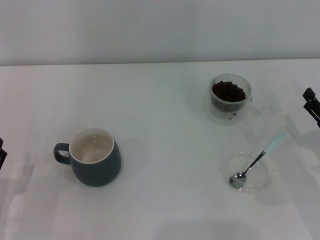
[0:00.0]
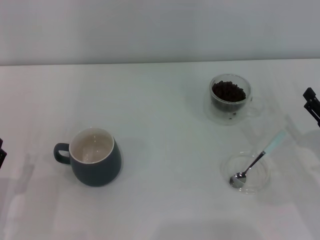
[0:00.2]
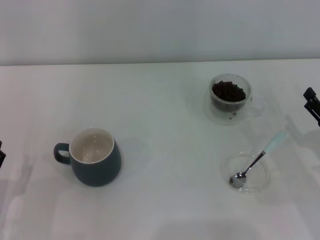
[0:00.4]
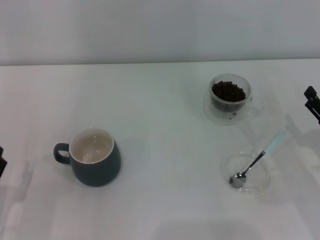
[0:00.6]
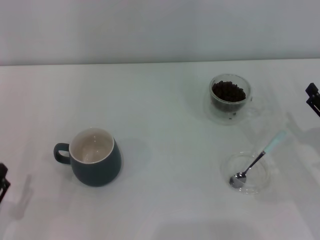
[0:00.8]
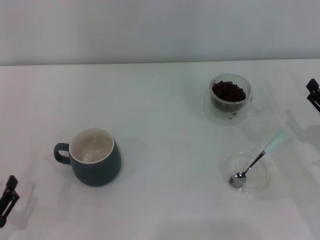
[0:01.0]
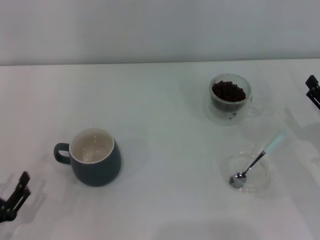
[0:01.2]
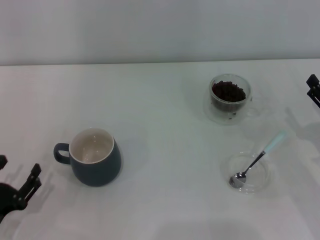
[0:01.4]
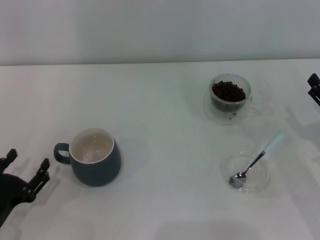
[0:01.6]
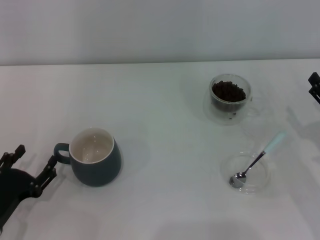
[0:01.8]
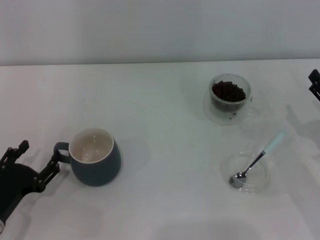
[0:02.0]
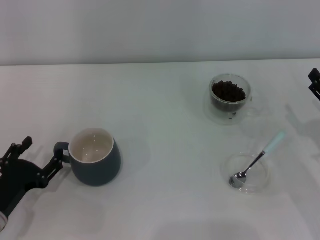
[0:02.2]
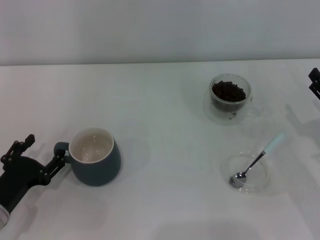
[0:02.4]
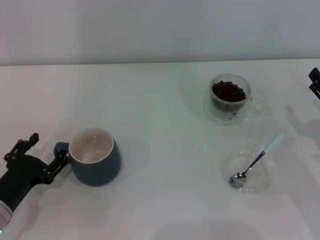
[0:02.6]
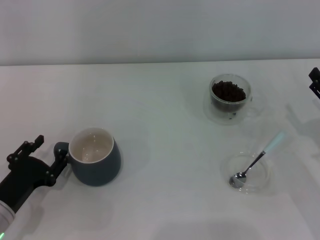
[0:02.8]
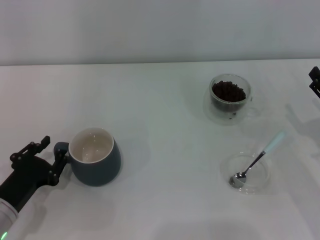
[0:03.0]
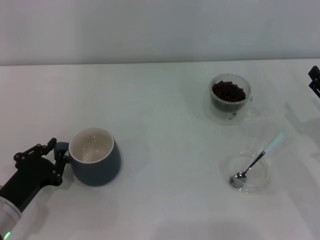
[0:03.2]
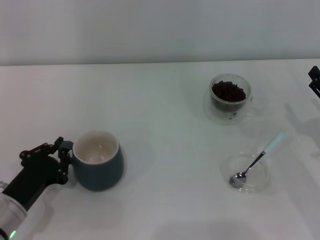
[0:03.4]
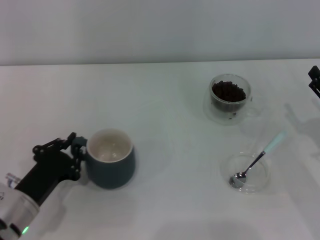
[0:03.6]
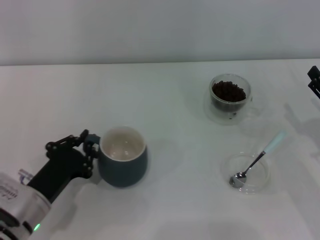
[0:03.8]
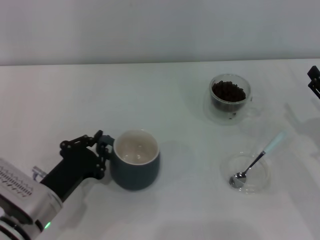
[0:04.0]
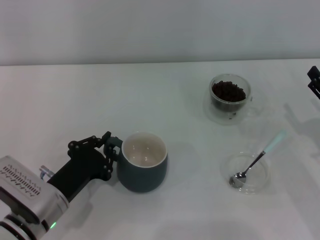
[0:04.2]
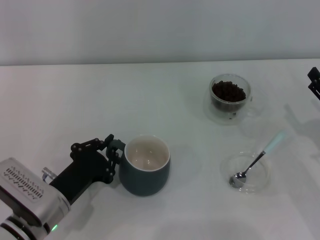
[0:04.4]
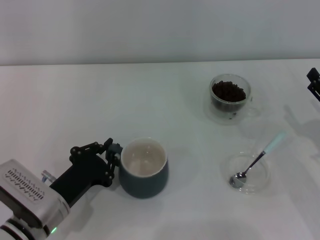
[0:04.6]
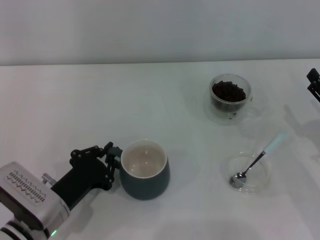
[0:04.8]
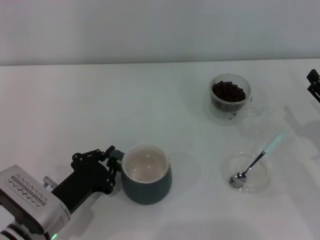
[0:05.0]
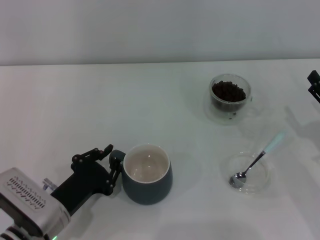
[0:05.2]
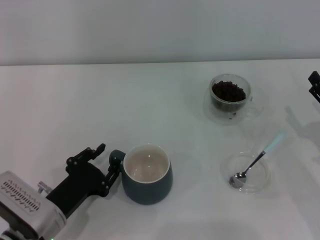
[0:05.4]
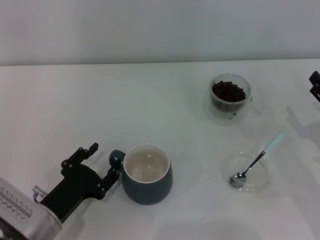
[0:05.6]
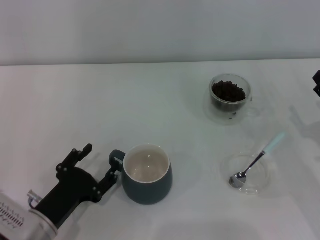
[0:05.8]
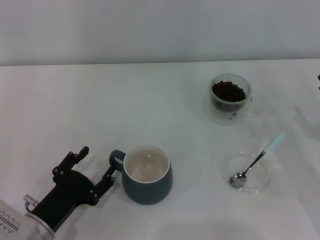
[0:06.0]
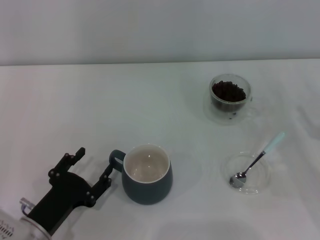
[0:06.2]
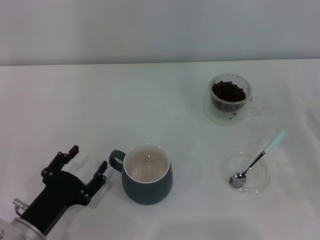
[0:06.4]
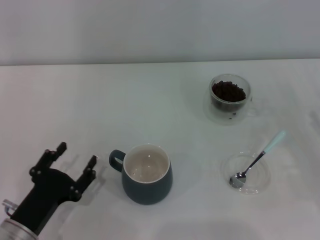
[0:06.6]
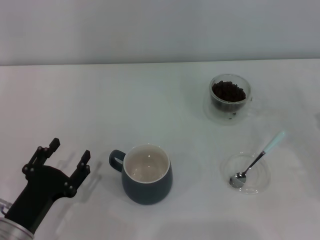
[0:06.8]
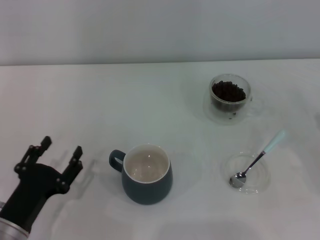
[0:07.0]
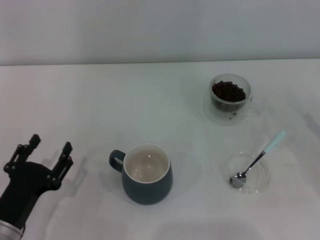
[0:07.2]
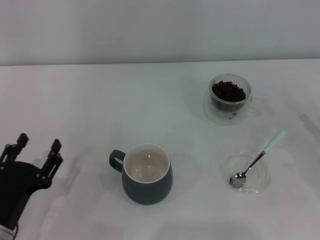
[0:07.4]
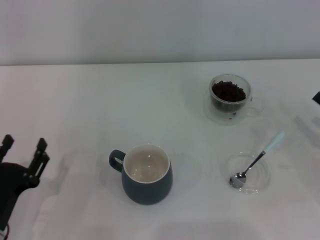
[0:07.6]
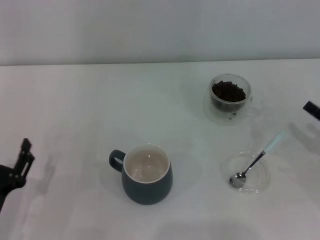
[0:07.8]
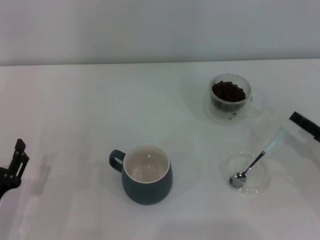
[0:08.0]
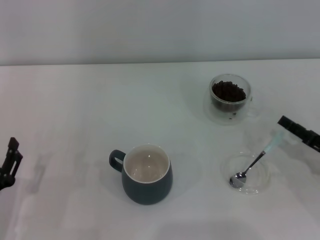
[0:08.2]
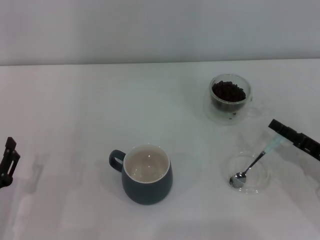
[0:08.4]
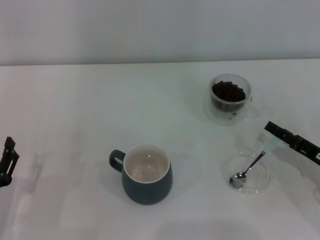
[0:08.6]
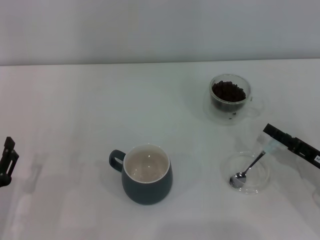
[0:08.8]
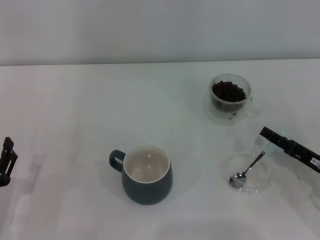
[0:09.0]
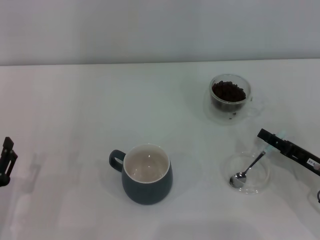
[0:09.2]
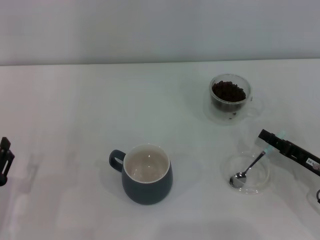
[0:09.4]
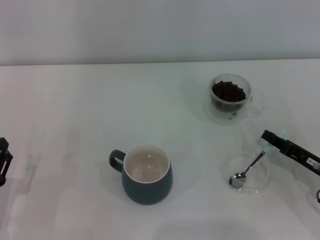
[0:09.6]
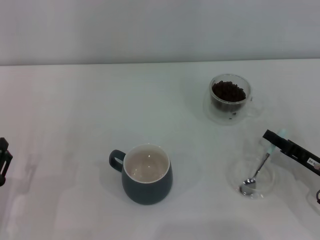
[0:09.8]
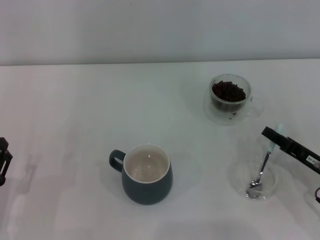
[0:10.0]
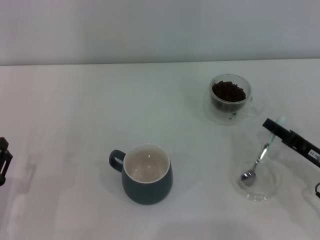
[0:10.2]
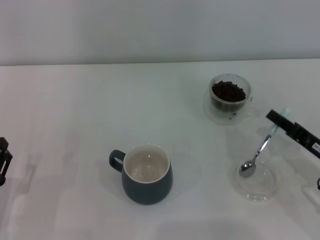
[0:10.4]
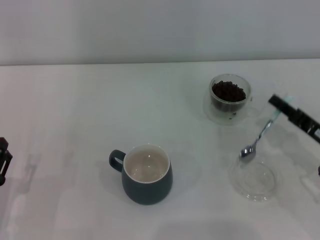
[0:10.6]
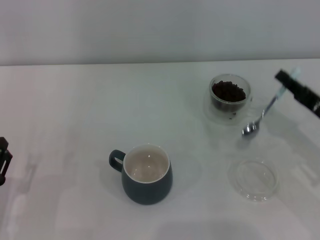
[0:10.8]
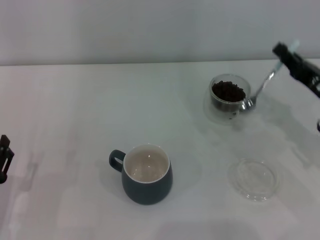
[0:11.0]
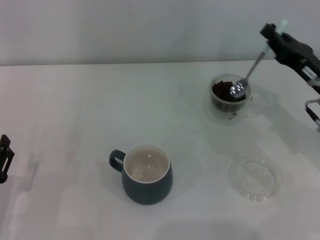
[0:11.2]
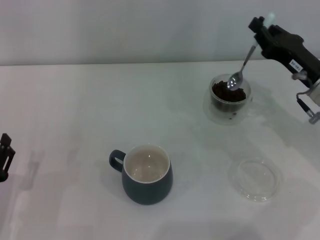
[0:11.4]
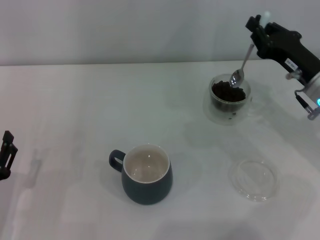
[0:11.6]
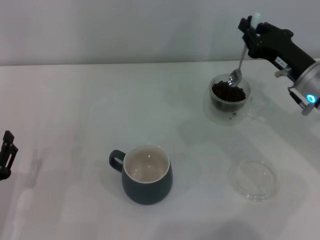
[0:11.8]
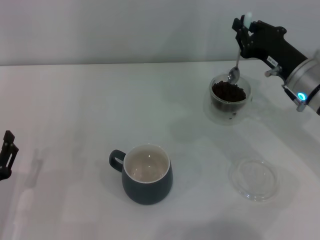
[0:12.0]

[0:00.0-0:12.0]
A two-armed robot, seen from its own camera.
Task of the whole recording: Use a blue spoon to take out the coffee beans from the glass and pour them into the gray cup.
Step, 0:00.0 to 0:06.6: Move the cup to the center of view with the left gripper.
Step, 0:06.8 to 0:10.6: Pick up the spoon with the right gripper.
0:01.6 to 0:03.0: There are only small adjustments of the grippers.
0:03.0 to 0:04.4: The left gripper is displaced to the right by approximately 5 cm, and closes.
0:04.4 to 0:06.0: The left gripper opens its fingers.
0:07.6 to 0:09.0: The right gripper is displaced to the left by some 5 cm.
0:09.0 to 0:10.4: The right gripper closes.
0:10.4 to 0:12.0: The right gripper is displaced forward, upward and to the left by some 15 cm.

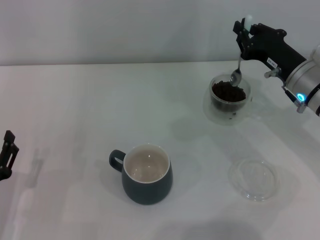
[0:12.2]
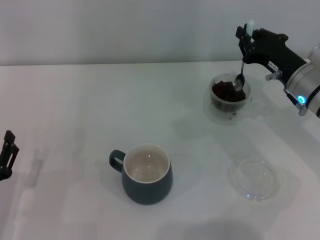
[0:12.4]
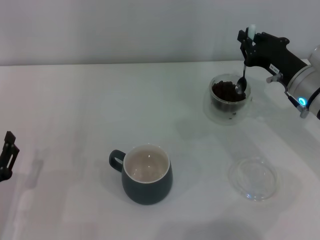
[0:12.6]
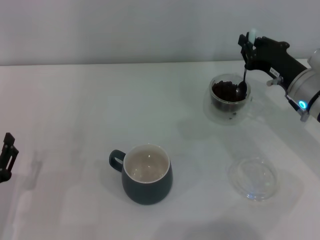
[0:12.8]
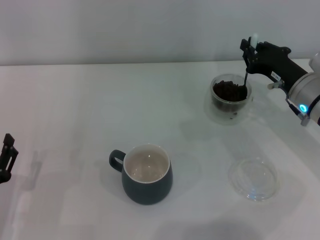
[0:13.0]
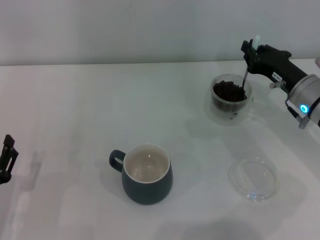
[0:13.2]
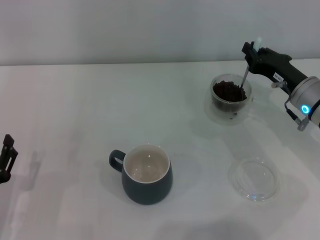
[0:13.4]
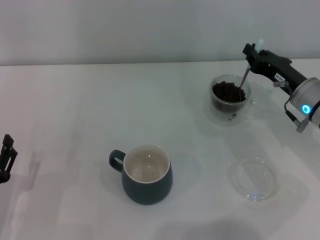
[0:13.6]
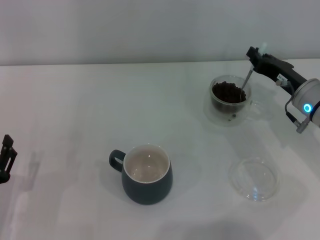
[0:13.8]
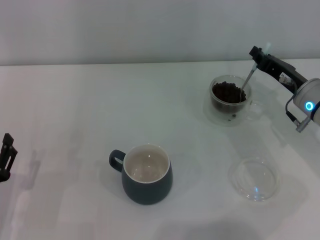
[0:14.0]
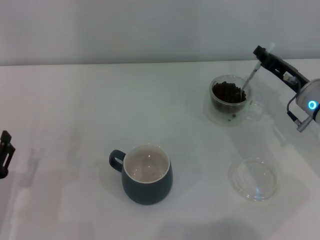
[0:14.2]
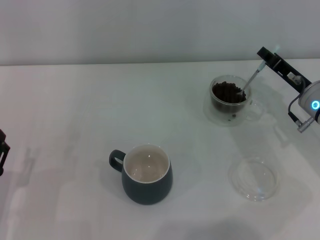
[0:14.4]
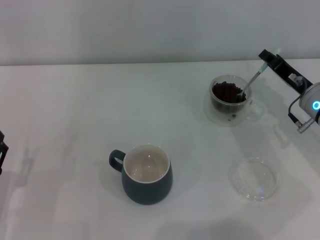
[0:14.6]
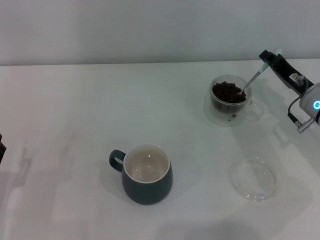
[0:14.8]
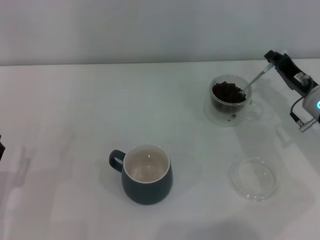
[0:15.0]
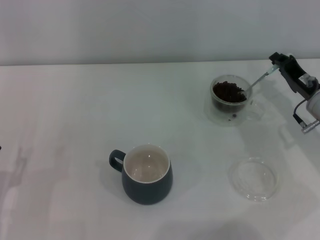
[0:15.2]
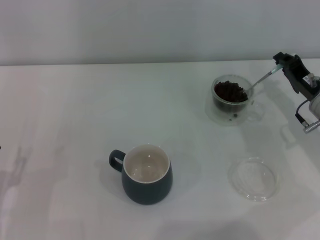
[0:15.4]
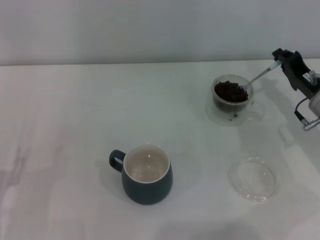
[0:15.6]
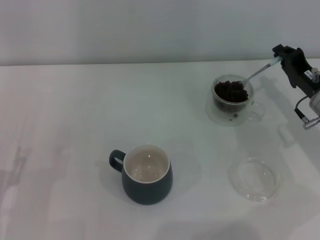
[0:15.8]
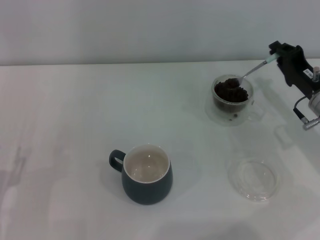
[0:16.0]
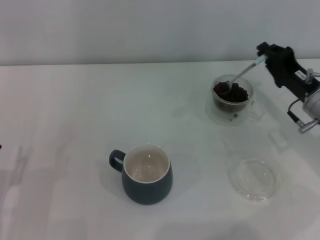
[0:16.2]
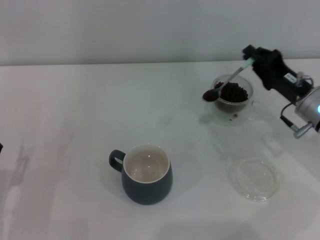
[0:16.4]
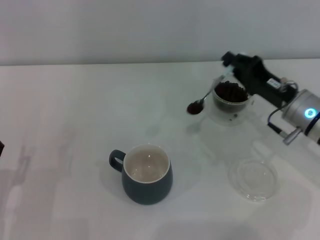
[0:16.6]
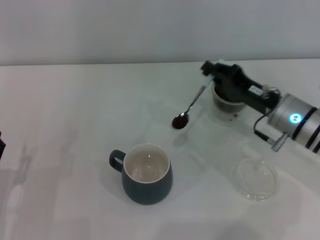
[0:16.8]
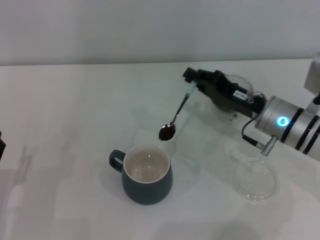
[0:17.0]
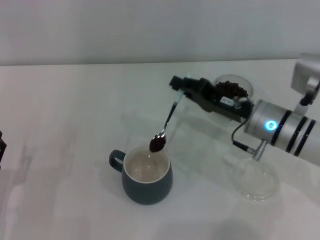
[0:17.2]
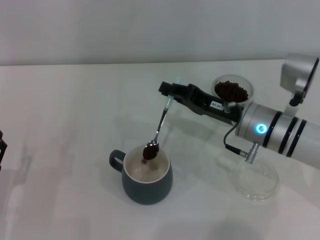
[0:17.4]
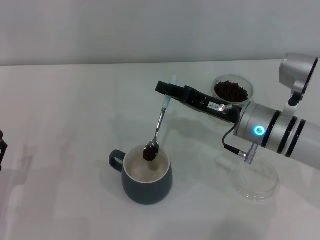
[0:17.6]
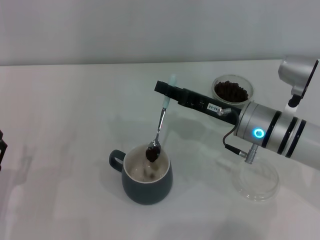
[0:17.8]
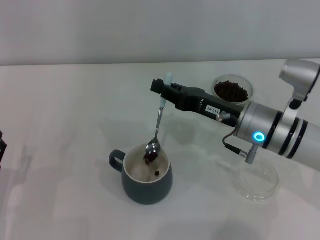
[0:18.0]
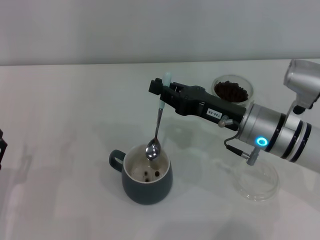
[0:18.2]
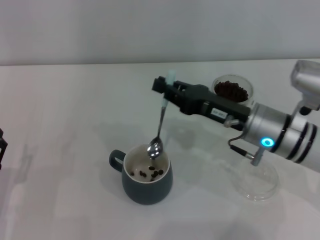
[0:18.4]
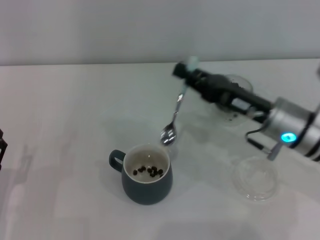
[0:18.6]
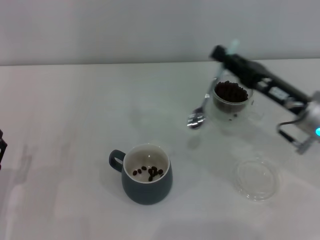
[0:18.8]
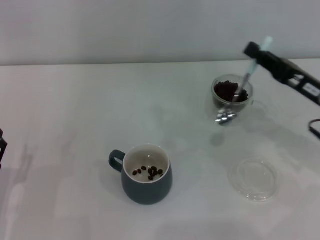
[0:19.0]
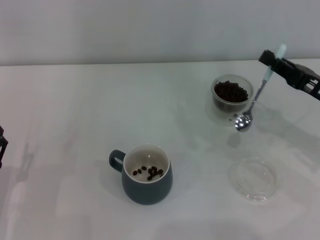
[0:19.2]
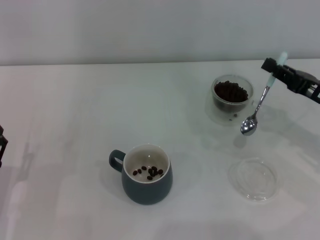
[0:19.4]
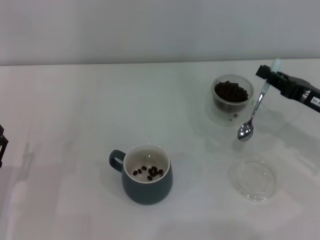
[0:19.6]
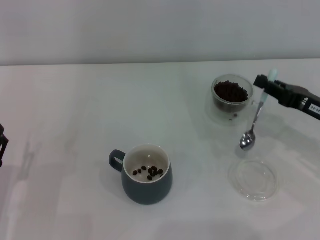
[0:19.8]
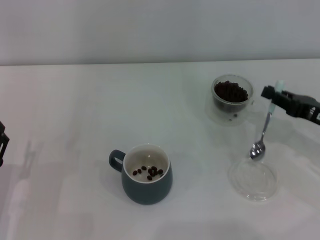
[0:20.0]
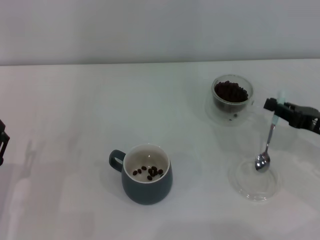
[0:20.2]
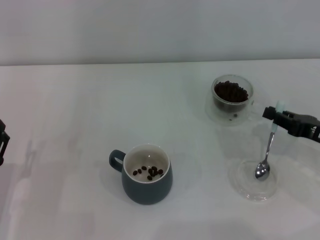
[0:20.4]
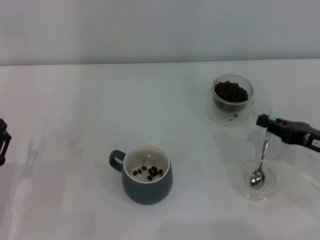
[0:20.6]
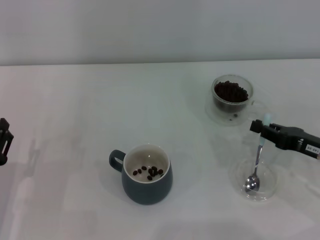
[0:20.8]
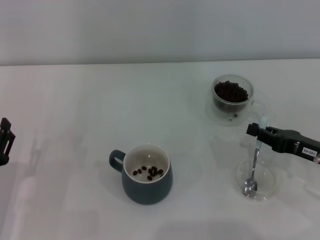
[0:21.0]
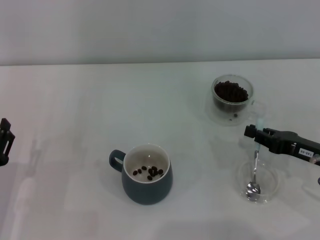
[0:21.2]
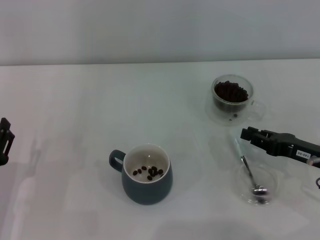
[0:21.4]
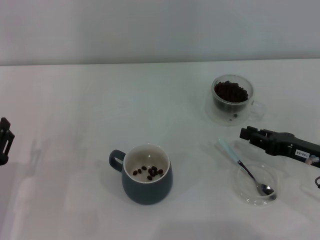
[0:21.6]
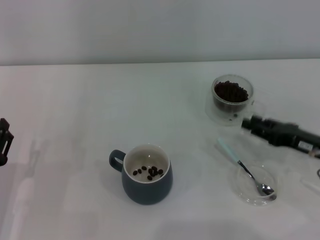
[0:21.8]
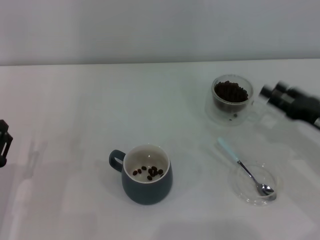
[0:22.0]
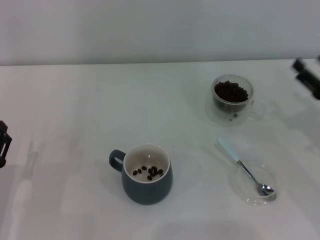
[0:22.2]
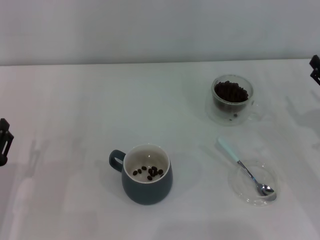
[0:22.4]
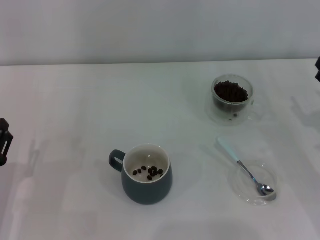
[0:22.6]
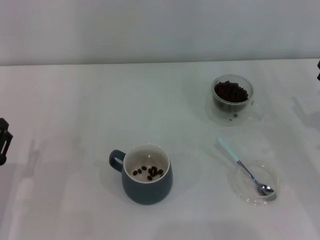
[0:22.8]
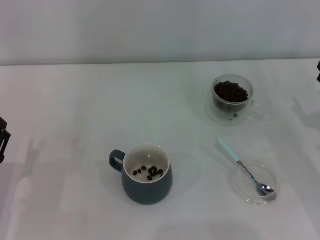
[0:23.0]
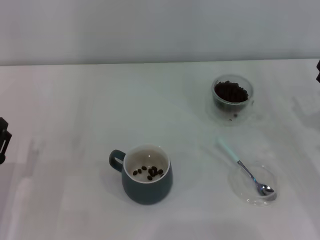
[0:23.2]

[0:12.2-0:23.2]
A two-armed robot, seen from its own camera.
Task of the whole recording: Use a blue spoon to take out the coffee beans from the glass and pour them into the gray cup.
Step, 0:12.2 to 0:18.6: Scoop a spoonful of beans into the cup with the right gripper.
Step, 0:18.8 to 0:21.6: Place the spoon back in its original place with the right gripper.
0:15.4 to 0:17.0: The right gripper goes about 10 cm to the left.
0:18.4 to 0:20.0: The right gripper heads to the right, covering roughly 15 cm.
0:20.0 to 0:21.6: There are only small adjustments of the grippers.
0:21.6 to 0:23.2: The right gripper opens.
